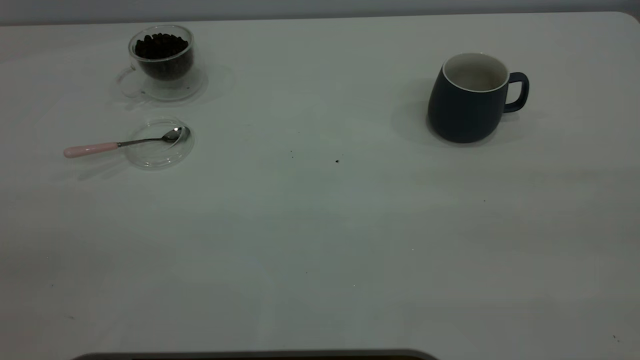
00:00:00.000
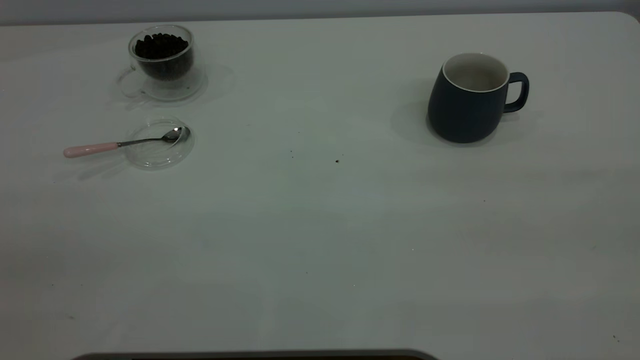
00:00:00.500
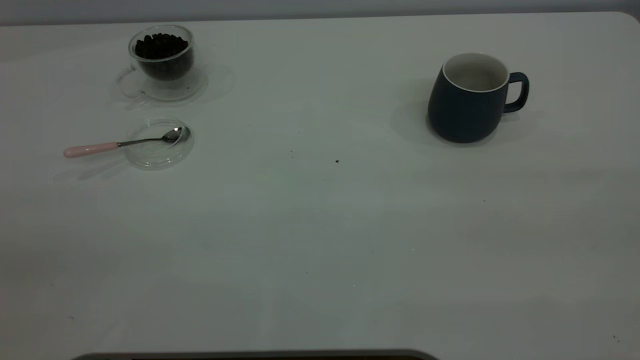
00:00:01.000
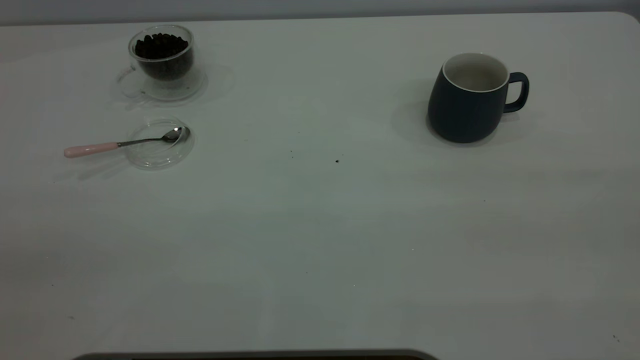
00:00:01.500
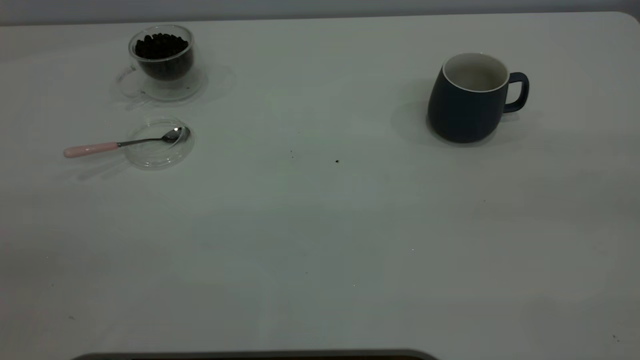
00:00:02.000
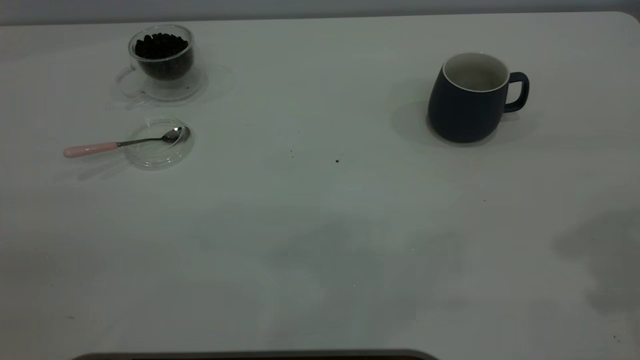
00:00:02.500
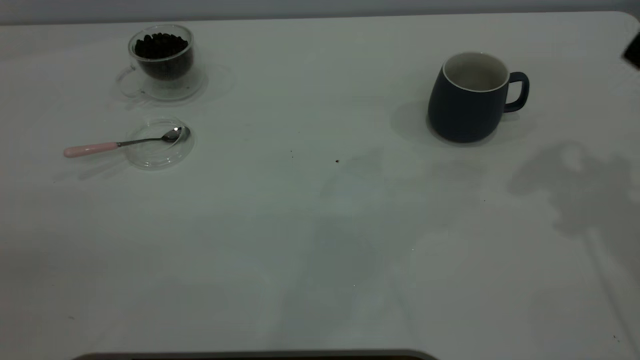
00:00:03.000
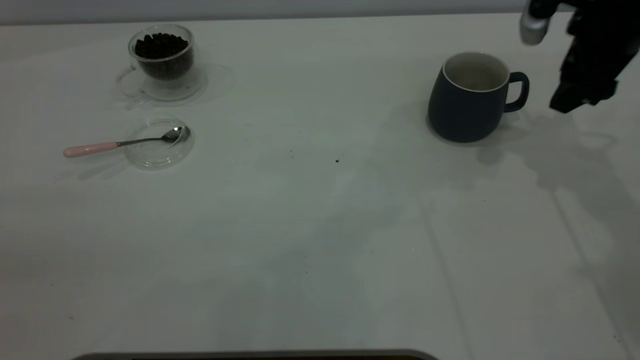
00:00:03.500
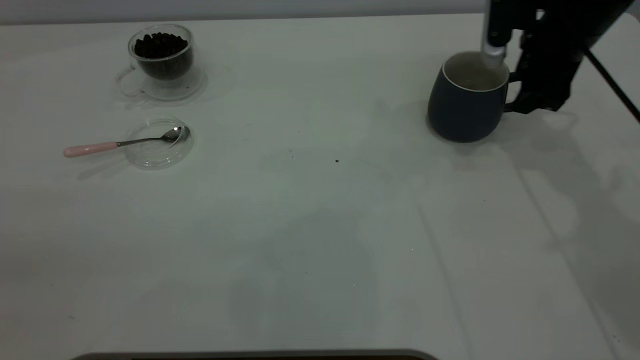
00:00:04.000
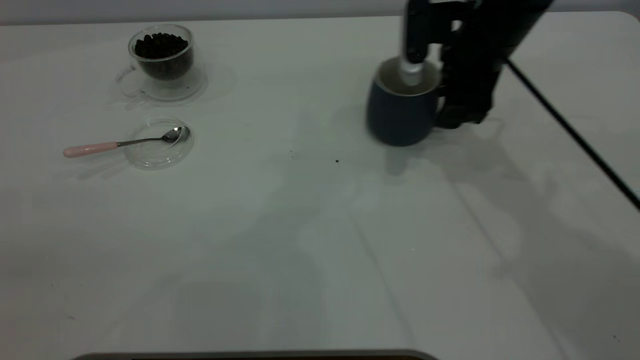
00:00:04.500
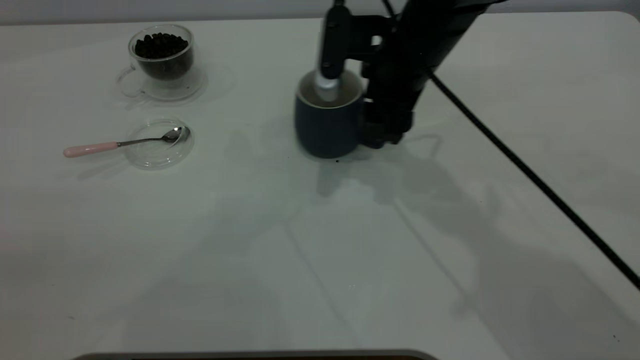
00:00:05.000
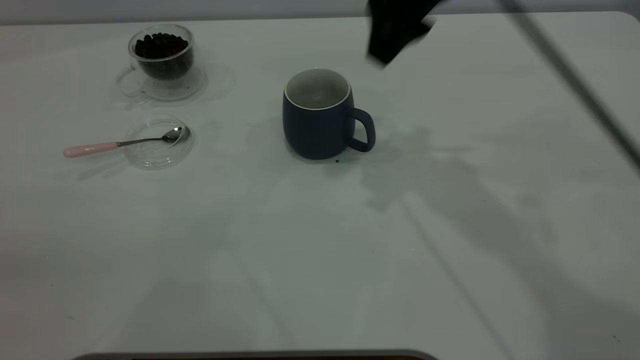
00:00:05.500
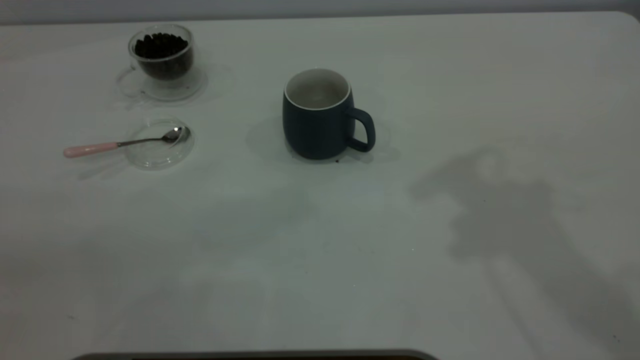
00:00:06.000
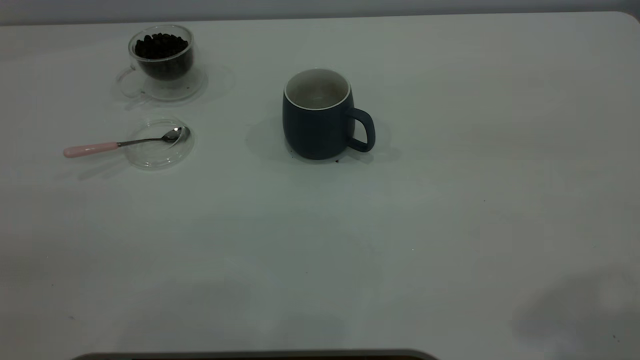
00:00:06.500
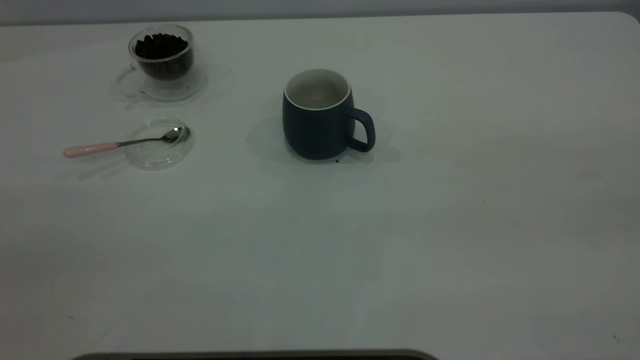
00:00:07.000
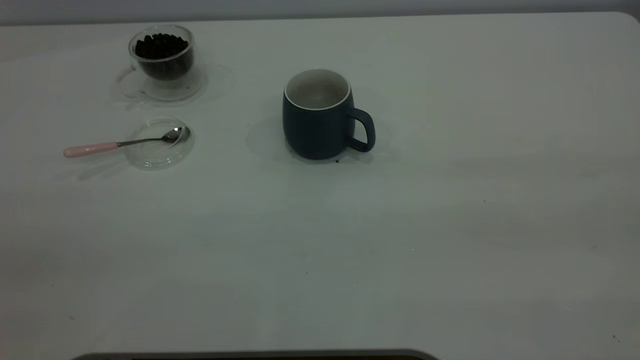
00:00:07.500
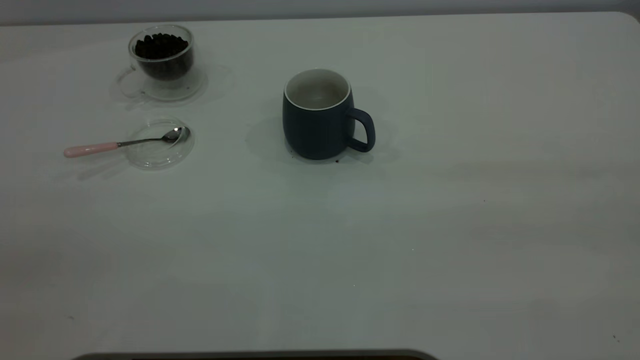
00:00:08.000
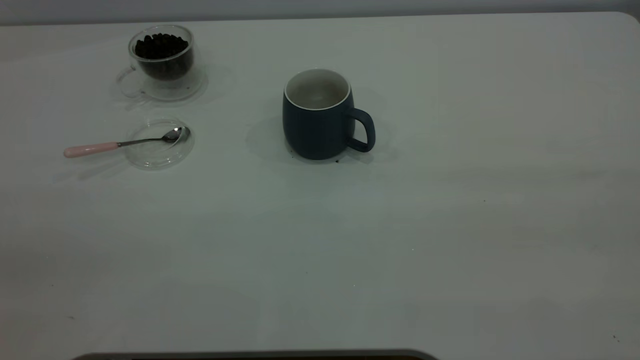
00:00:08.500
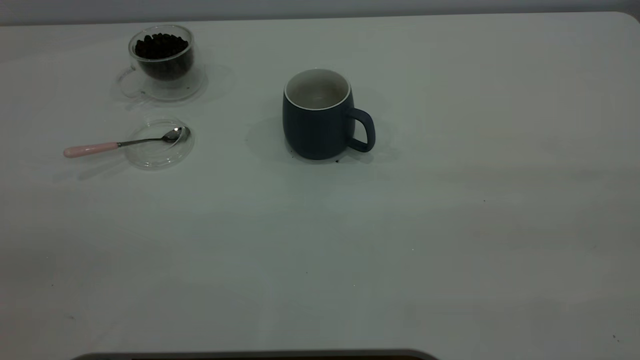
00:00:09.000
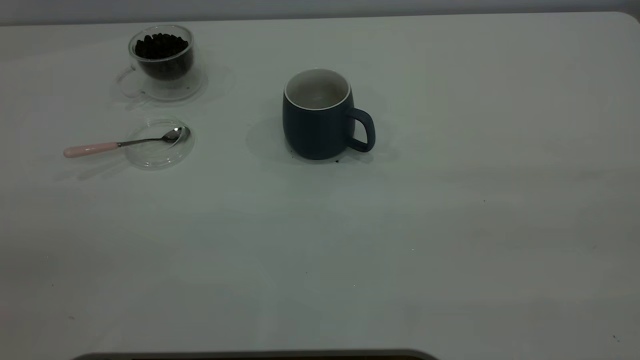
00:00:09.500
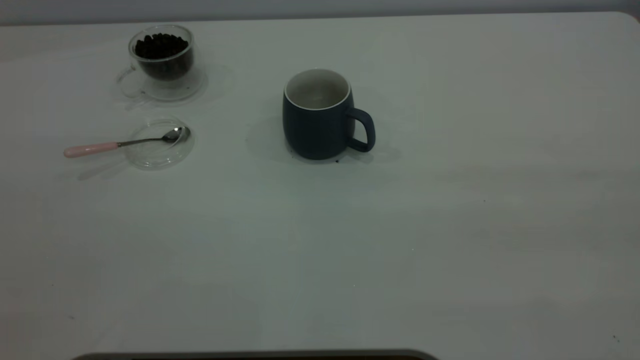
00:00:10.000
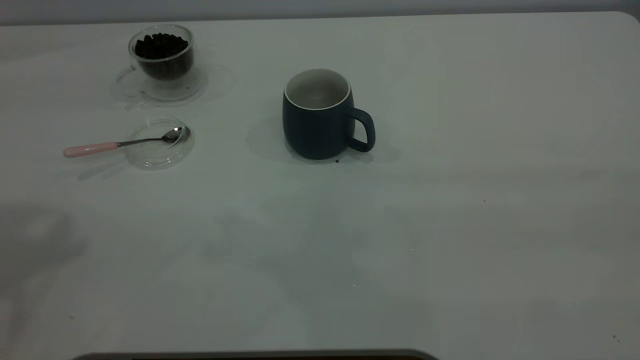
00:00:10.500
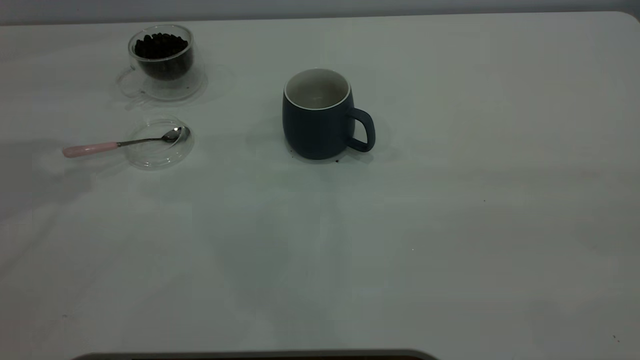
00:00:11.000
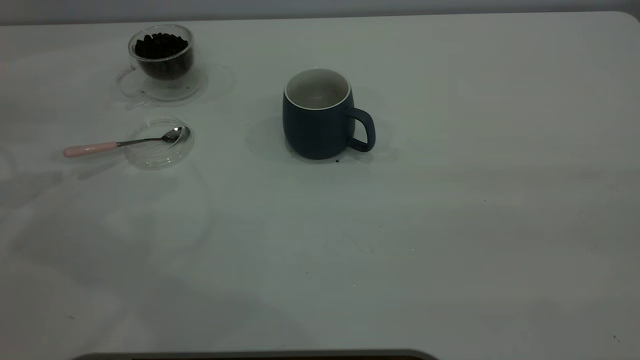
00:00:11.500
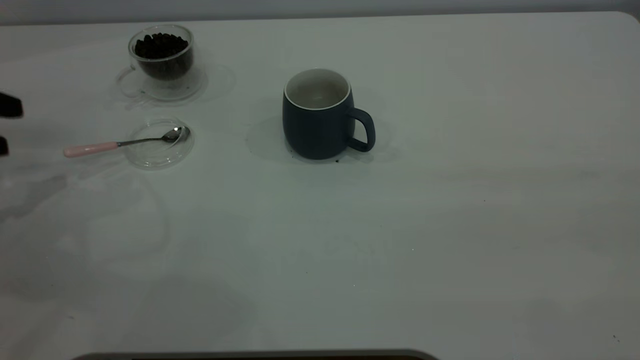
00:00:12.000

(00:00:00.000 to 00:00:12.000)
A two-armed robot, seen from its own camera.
Task of the whole recording: the right gripper place the grey cup in the center of the table, the left gripper take the pink spoon from the cup lid and scoop out the coffee beans from the coffee cup and put them into the grey cup, the left gripper put the spoon back into the cup lid.
Step, 00:00:00.000 - 00:00:05.500: Move the cup to the center of view.
00:00:02.000 - 00:00:04.000: The right gripper shifts roughly 50 cm forward and downward.
00:00:04.000 - 00:00:06.000: The right gripper goes approximately 35 cm upward and backward.

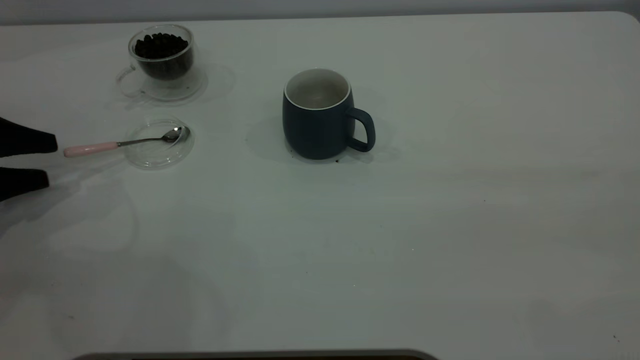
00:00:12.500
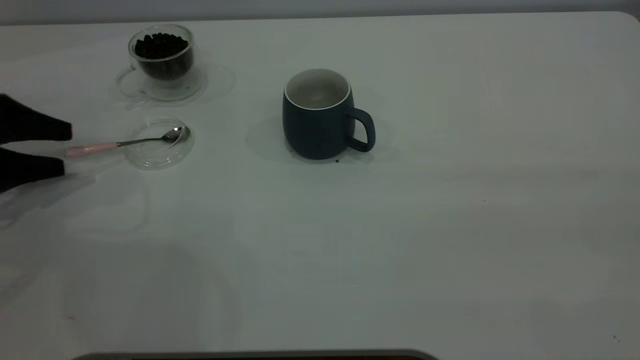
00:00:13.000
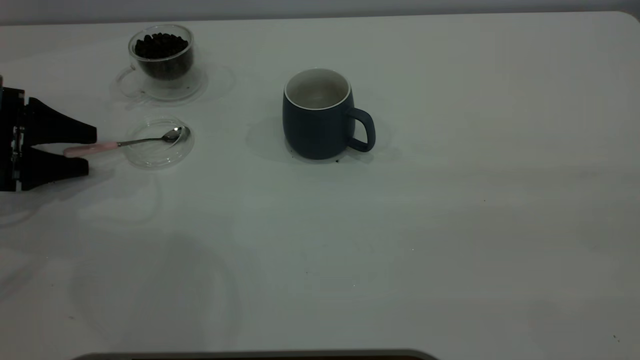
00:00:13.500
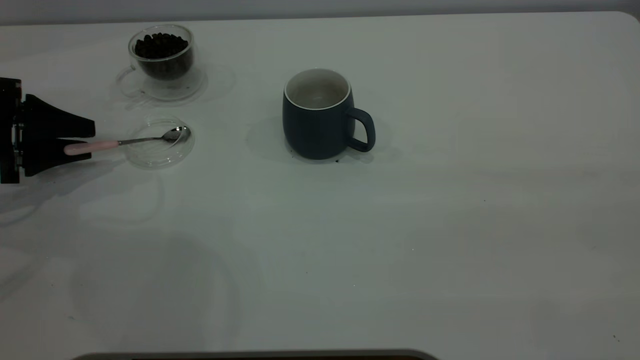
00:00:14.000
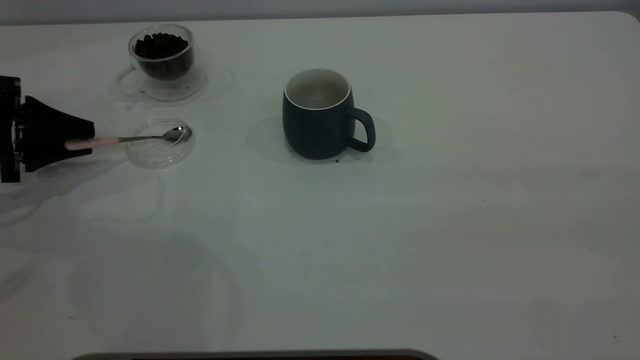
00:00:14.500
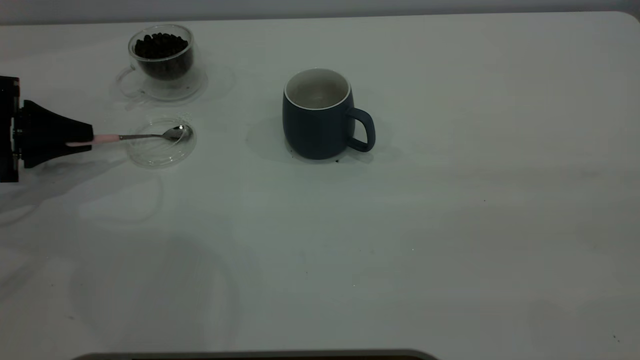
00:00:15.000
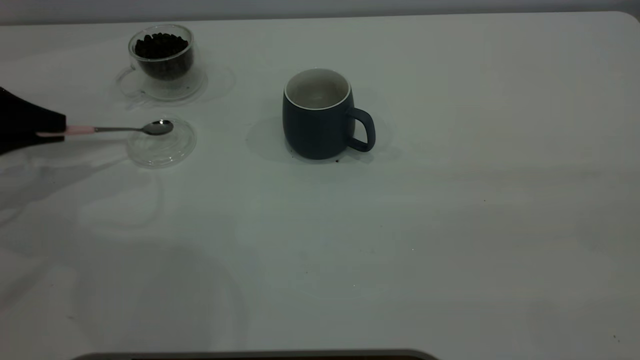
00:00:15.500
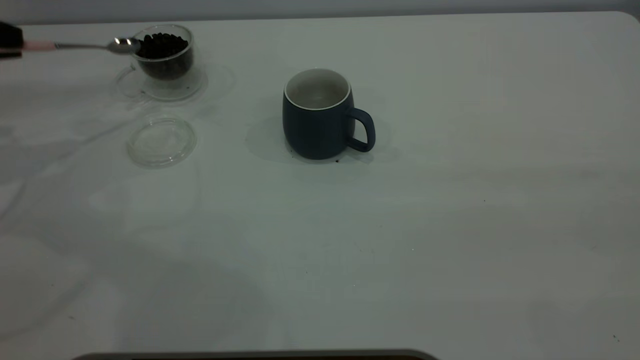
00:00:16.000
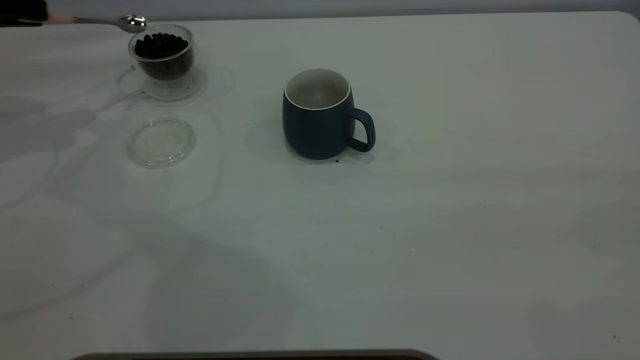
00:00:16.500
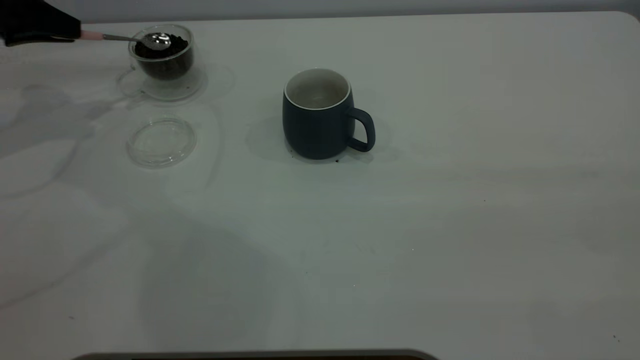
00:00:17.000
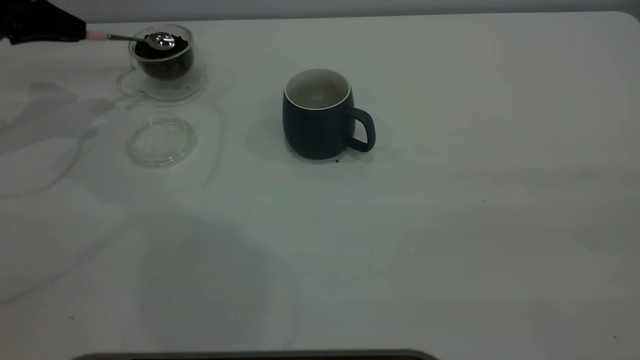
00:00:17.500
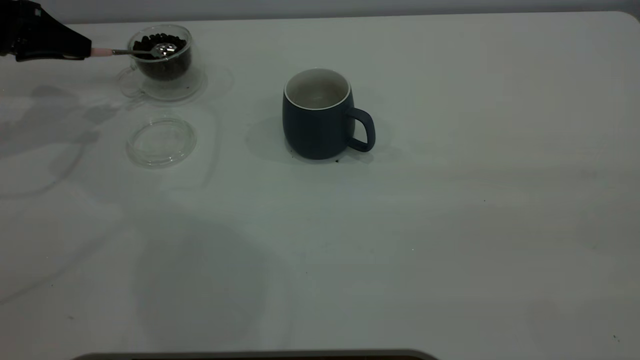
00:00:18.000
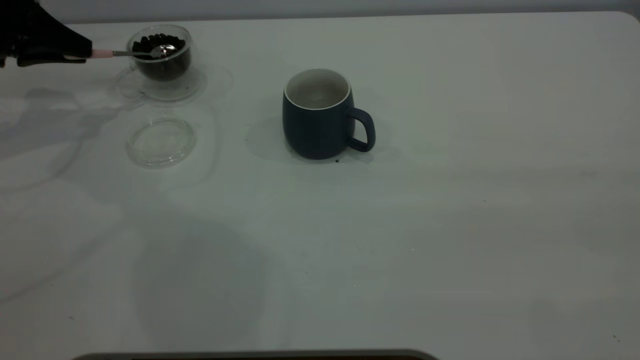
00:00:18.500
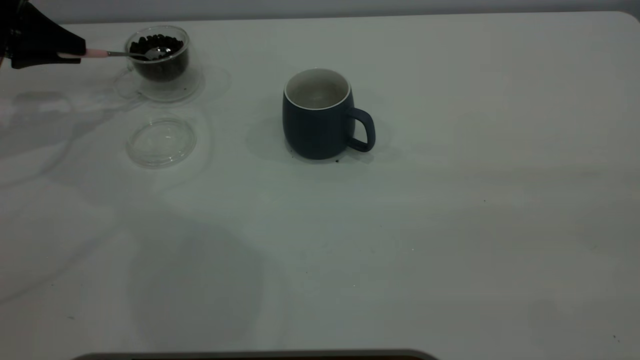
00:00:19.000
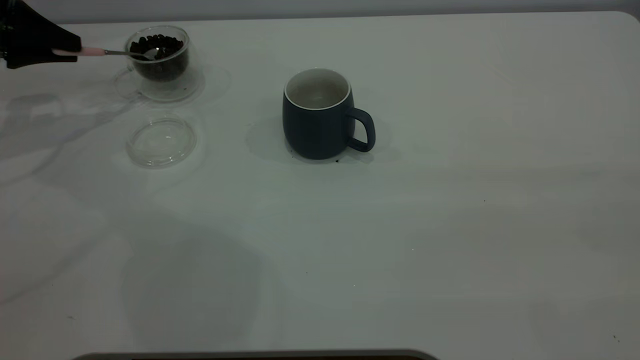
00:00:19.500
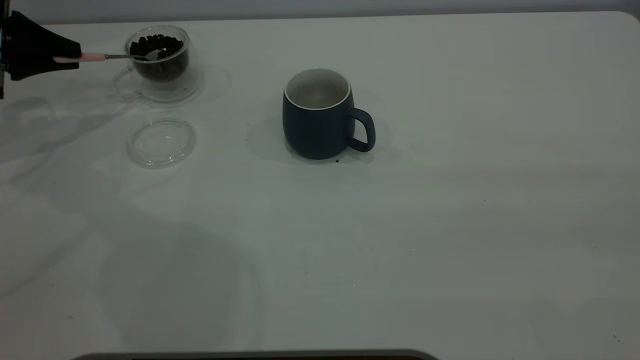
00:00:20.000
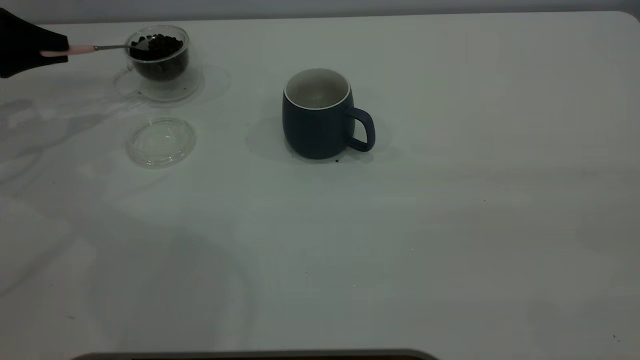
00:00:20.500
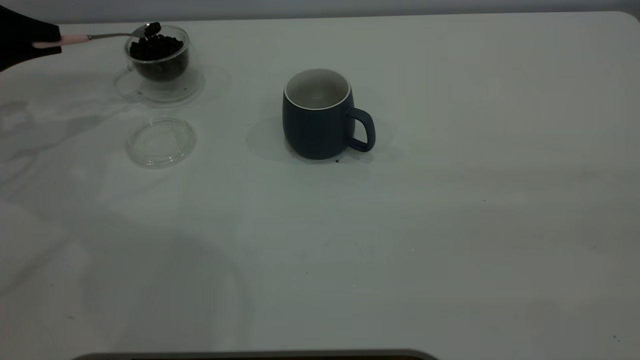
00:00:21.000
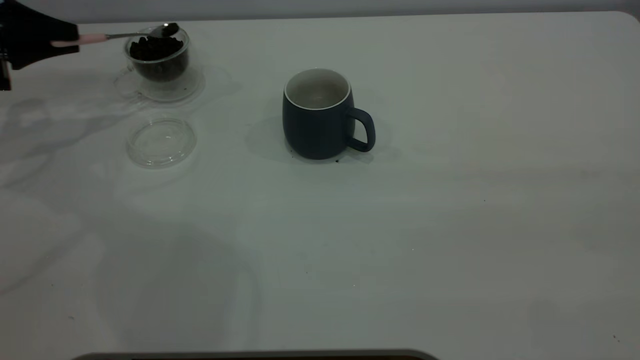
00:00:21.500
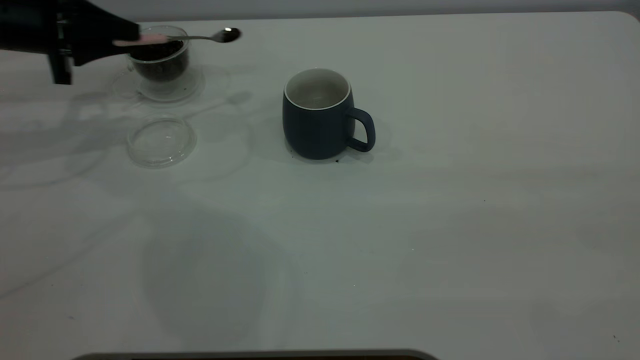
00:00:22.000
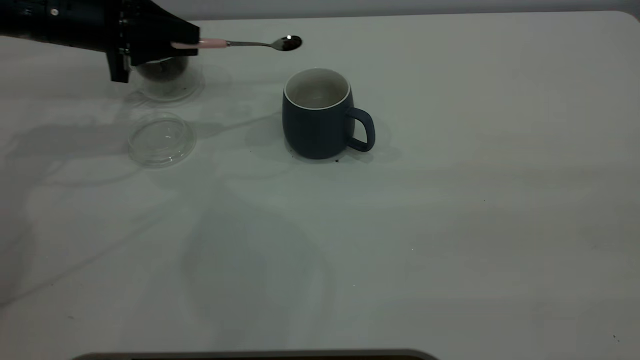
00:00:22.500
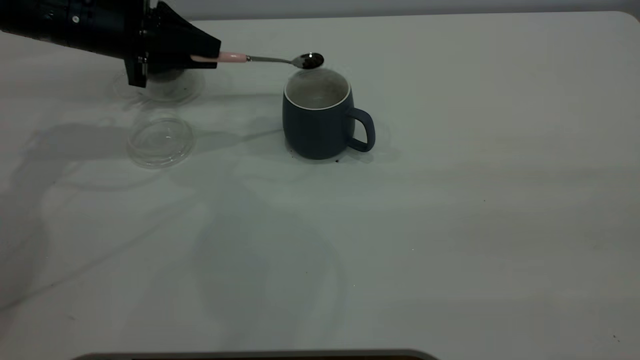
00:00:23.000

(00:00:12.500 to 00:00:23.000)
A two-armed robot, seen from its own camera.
Task of the whole recording: the right gripper place the grey cup in the center of the table, the left gripper take the pink spoon from the cup lid and scoop out the coffee beans from the coffee cup and put them into the grey cup, the left gripper put the spoon back into the cup lid.
Step, 00:00:12.500 - 00:00:15.500: Pick up the spoon.
00:00:12.500 - 00:00:14.500: The left gripper ends up about 5 cm from where it was, and closes its fingers.
00:00:14.500 - 00:00:16.500: The left gripper goes about 15 cm upward and forward.
00:00:16.500 - 00:00:19.000: The left gripper ends up some 5 cm from where it was.
00:00:21.000 - 00:00:23.000: The left gripper travels to the right by roughly 20 cm.
